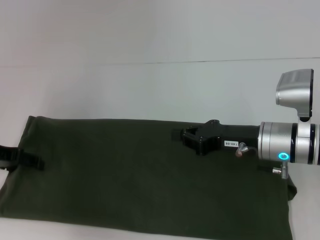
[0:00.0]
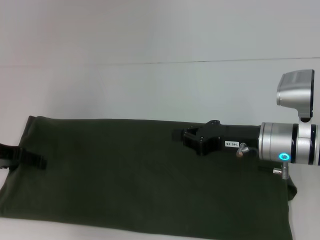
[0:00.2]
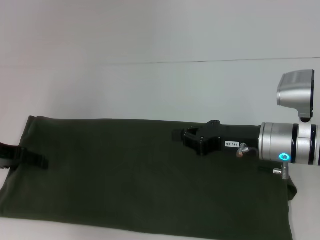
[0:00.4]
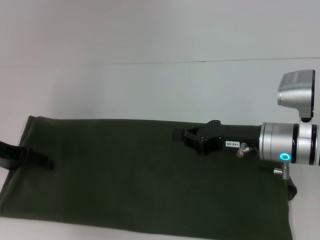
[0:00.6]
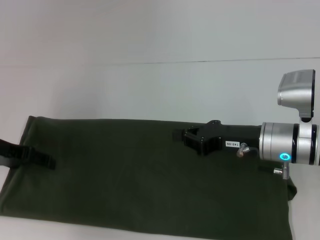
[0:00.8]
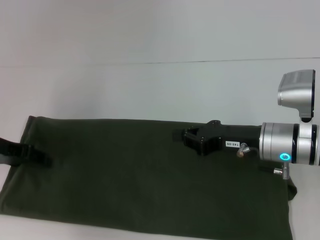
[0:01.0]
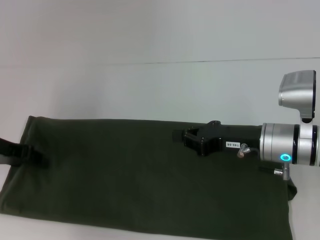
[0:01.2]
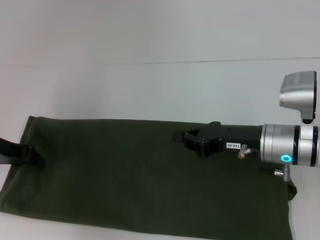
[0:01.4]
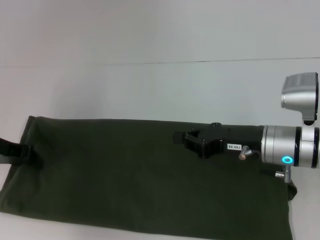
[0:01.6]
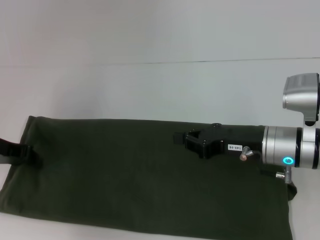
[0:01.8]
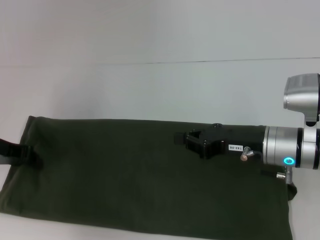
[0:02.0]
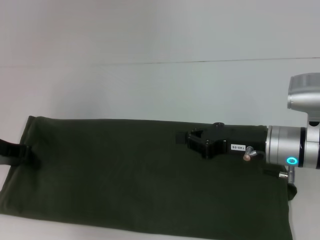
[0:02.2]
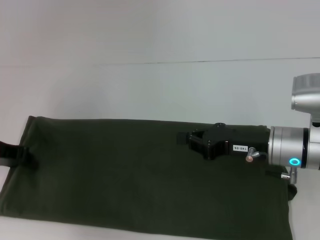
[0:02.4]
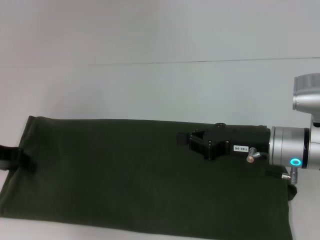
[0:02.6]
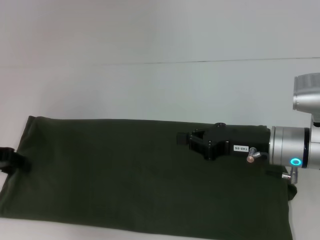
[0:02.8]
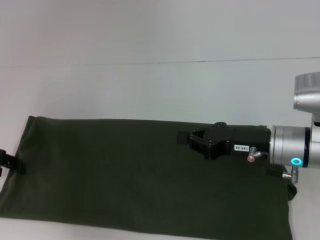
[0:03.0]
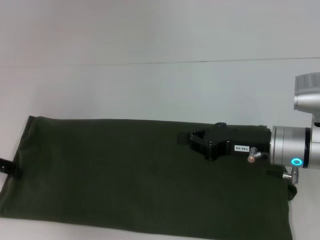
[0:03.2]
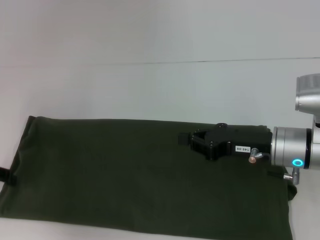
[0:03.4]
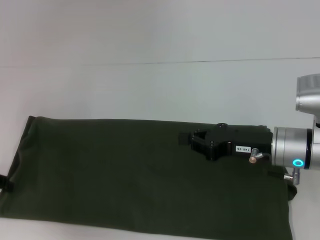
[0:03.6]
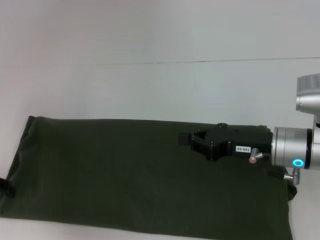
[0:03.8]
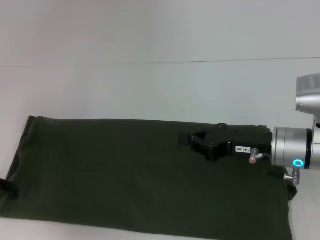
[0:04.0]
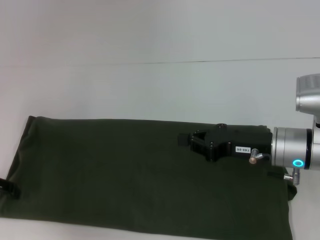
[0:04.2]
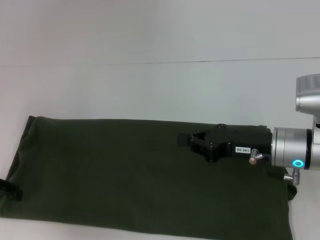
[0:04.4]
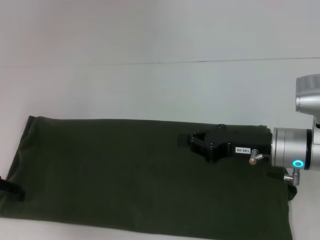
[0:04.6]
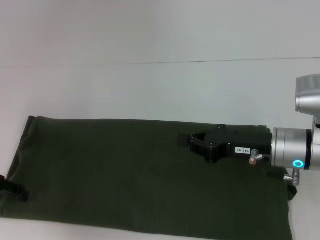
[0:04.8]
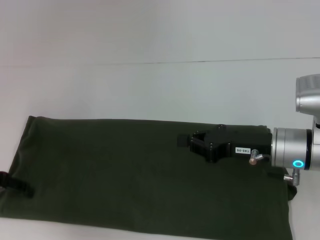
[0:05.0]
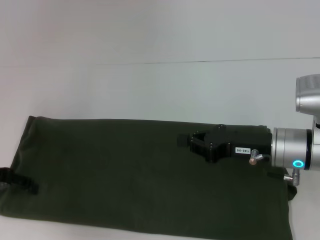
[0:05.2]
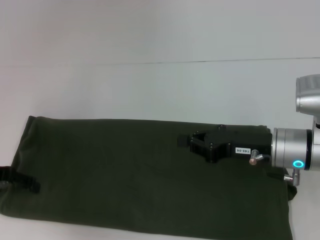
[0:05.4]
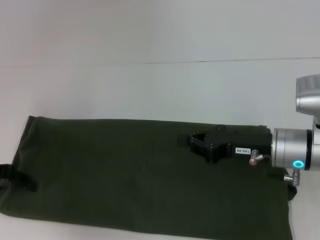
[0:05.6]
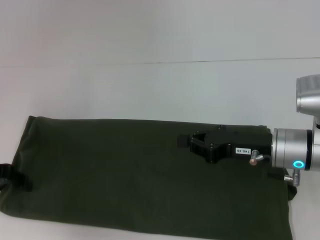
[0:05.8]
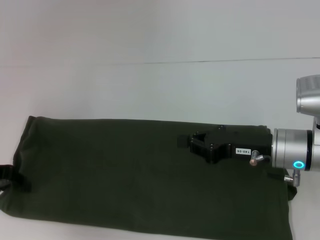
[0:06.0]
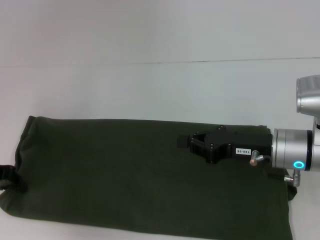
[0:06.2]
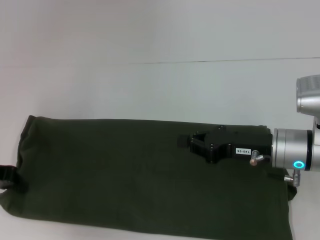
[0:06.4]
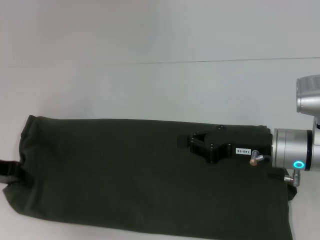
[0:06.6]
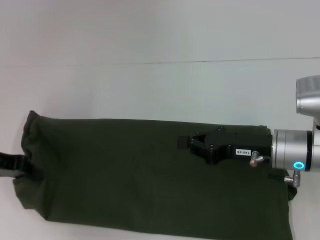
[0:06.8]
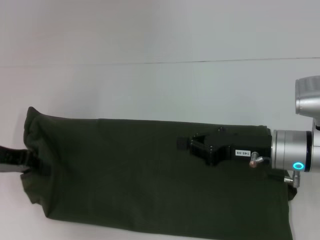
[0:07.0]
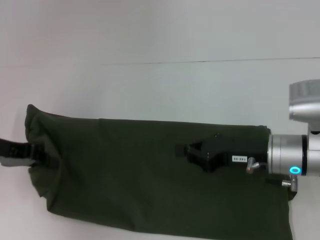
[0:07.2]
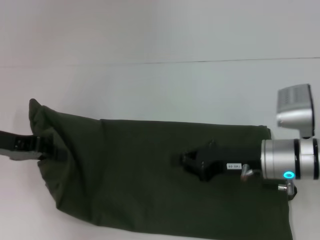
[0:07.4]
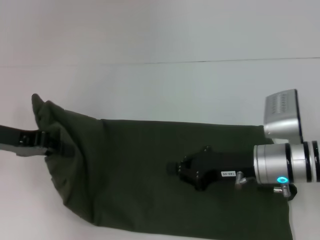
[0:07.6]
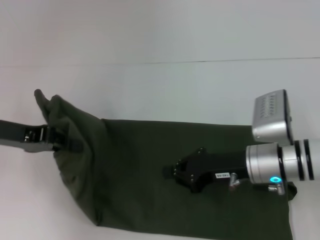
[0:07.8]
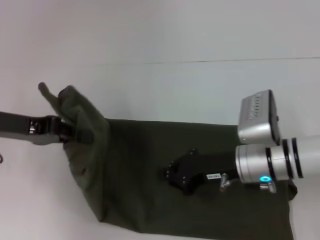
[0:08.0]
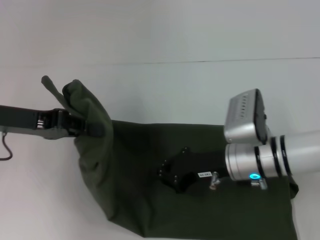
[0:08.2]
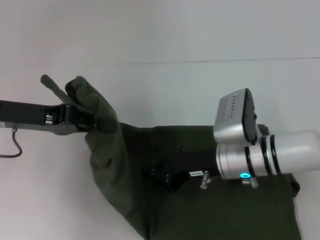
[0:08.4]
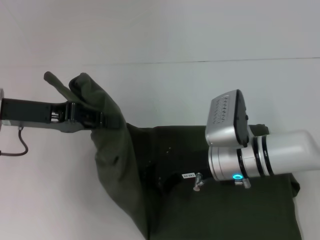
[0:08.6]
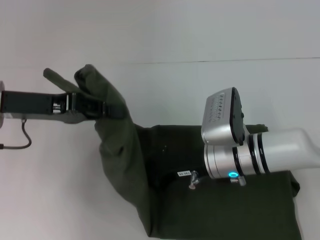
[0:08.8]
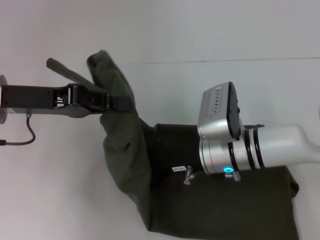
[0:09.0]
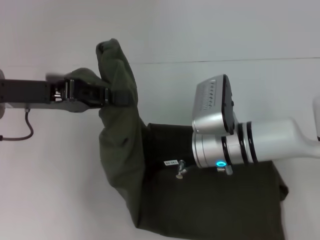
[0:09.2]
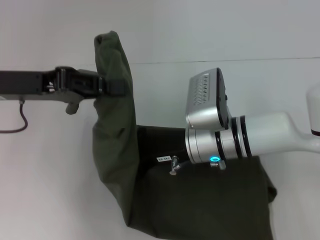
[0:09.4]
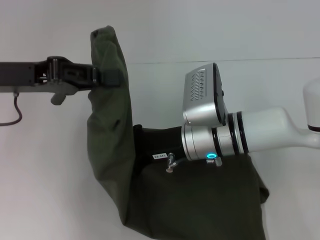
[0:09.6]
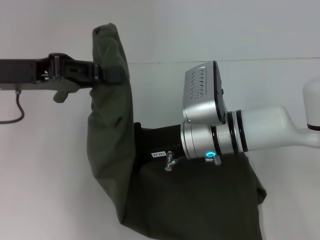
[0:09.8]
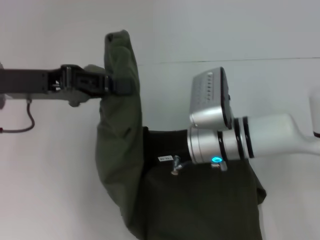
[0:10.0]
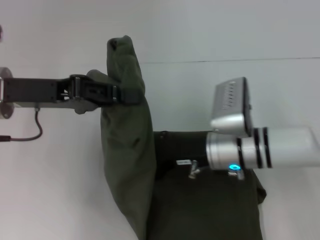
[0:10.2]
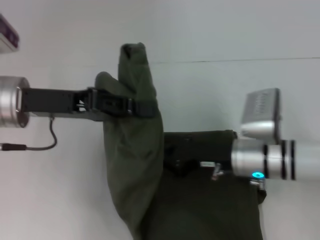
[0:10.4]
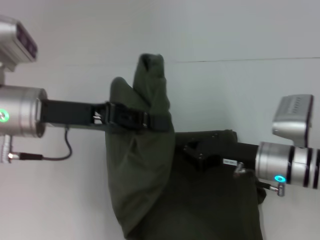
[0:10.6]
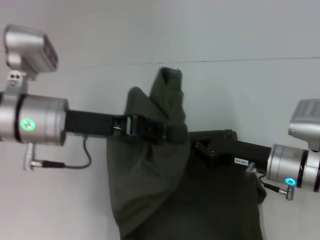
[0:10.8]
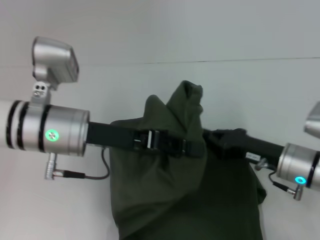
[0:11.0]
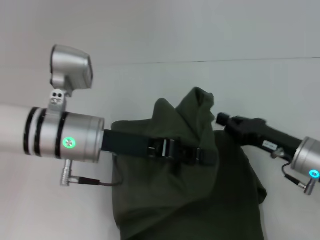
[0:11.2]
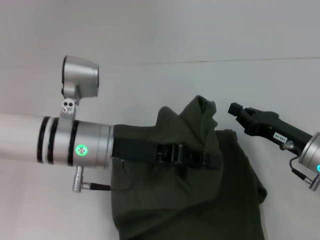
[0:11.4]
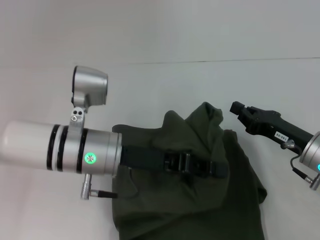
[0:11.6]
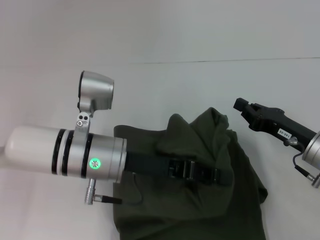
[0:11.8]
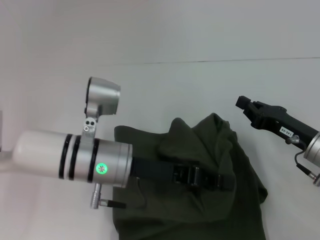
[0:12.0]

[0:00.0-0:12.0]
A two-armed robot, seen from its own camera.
0:00.0 to 0:01.6: The left gripper closes.
0:01.6 to 0:03.0: The grippers make only small movements.
0:03.0 to 0:04.4: The left gripper opens up.
0:04.4 to 0:06.0: The left gripper closes.
0:06.0 to 0:07.6: The left gripper closes its fingers.
0:07.6 to 0:09.0: The left gripper heads to the right, covering approximately 5 cm; the right gripper shifts roughly 10 cm to the left.
0:10.4 to 0:12.0: The right gripper moves to the right, about 10 cm. Meanwhile the left gripper is displaced to the right and downward by approximately 15 cm.

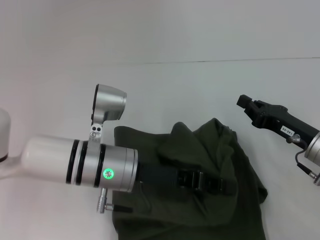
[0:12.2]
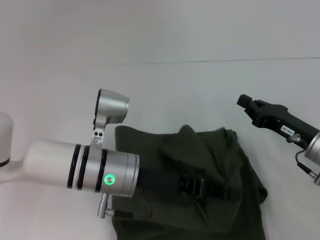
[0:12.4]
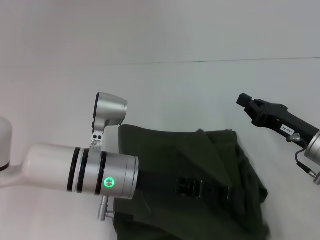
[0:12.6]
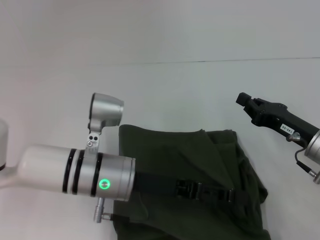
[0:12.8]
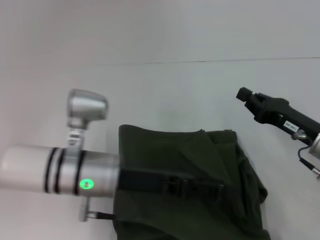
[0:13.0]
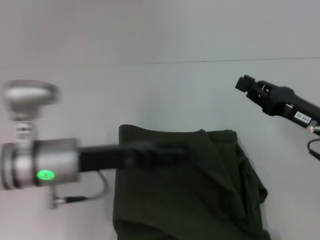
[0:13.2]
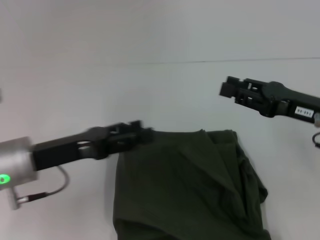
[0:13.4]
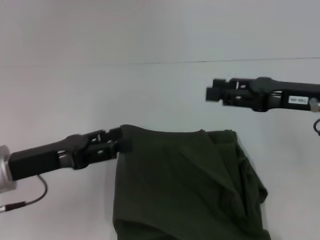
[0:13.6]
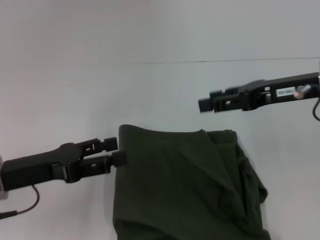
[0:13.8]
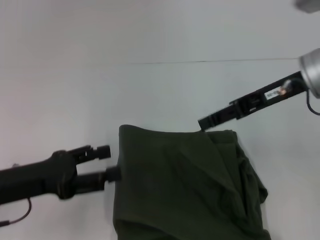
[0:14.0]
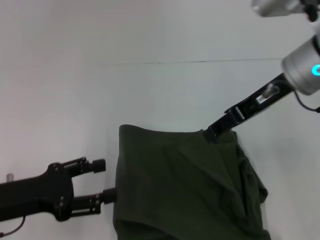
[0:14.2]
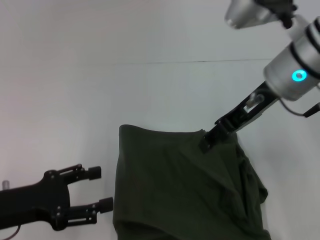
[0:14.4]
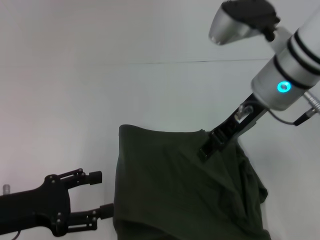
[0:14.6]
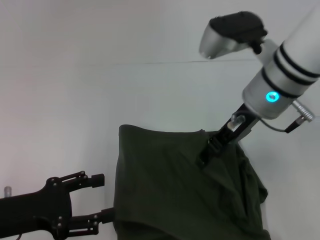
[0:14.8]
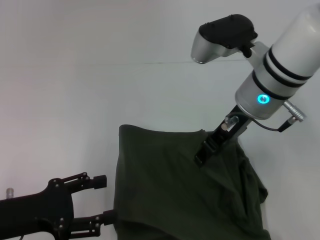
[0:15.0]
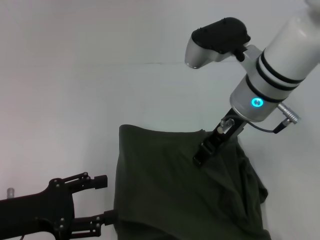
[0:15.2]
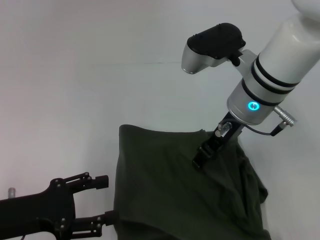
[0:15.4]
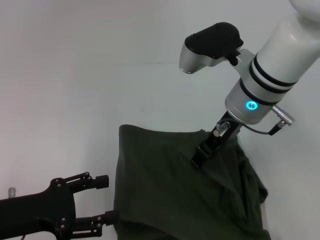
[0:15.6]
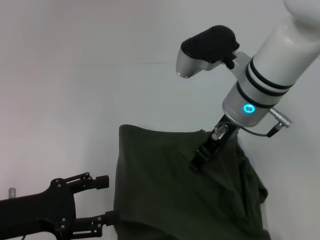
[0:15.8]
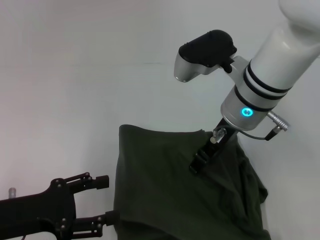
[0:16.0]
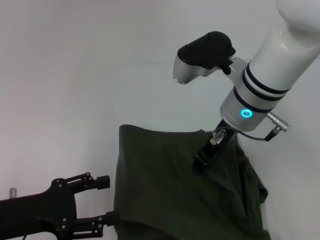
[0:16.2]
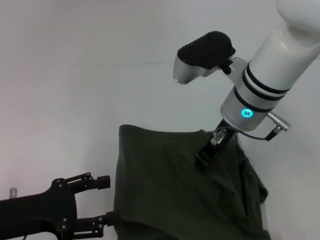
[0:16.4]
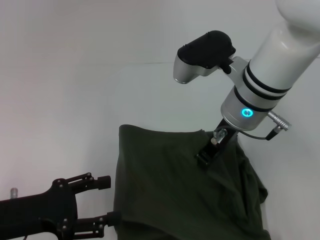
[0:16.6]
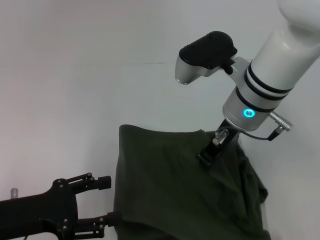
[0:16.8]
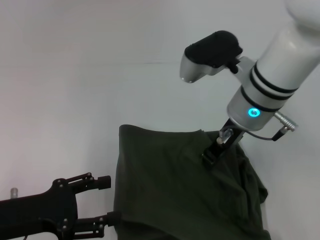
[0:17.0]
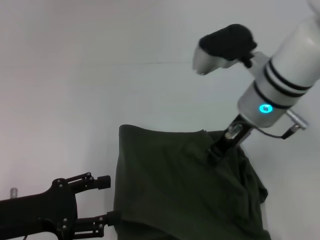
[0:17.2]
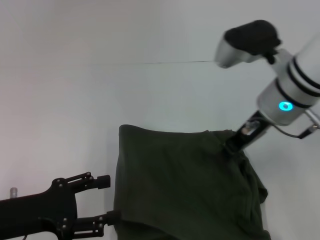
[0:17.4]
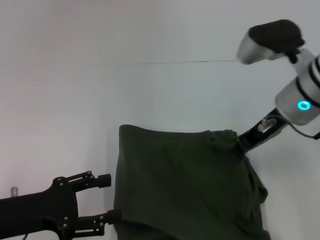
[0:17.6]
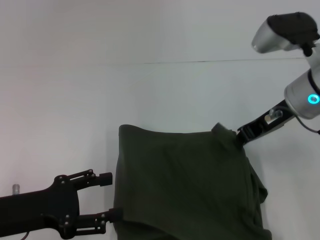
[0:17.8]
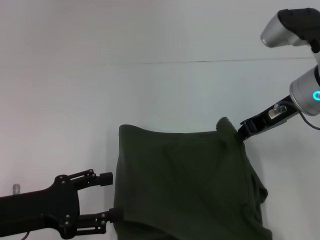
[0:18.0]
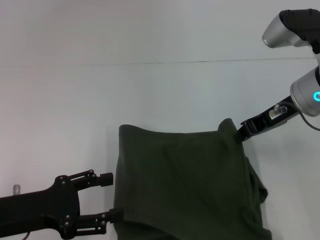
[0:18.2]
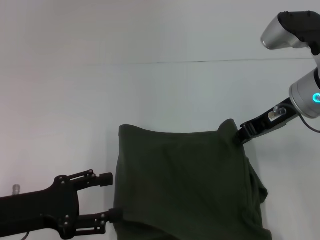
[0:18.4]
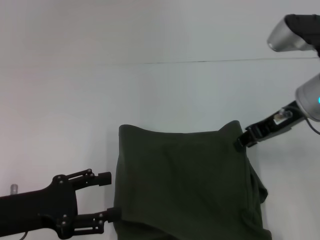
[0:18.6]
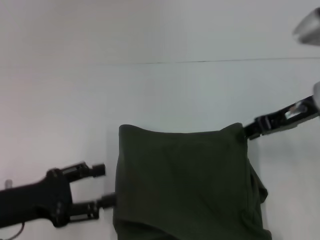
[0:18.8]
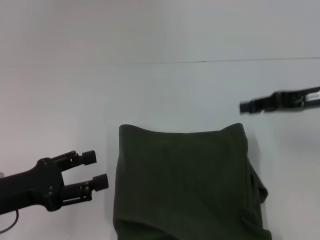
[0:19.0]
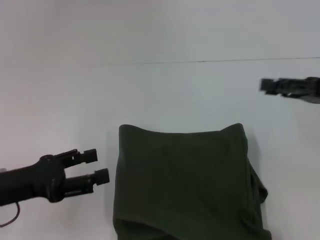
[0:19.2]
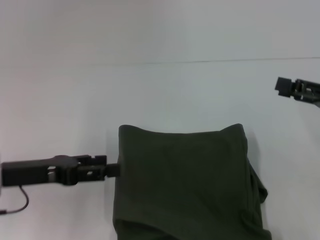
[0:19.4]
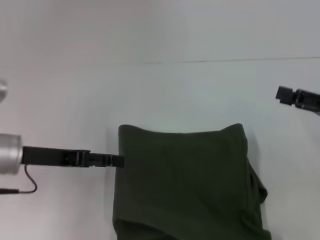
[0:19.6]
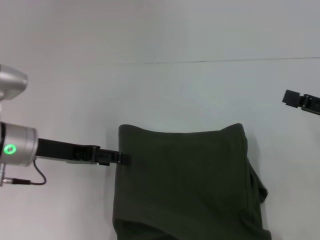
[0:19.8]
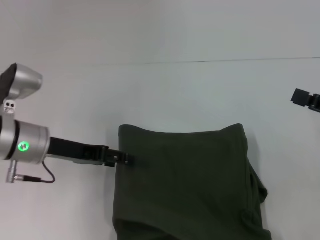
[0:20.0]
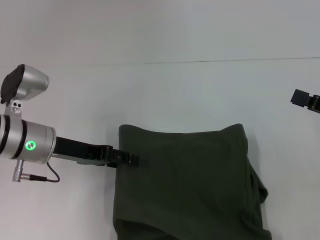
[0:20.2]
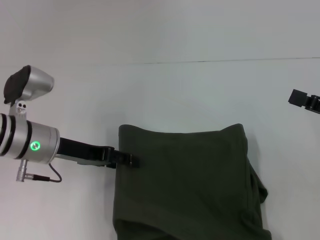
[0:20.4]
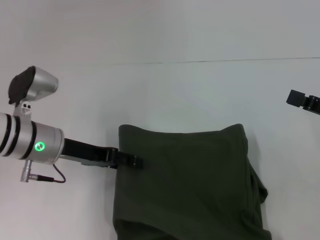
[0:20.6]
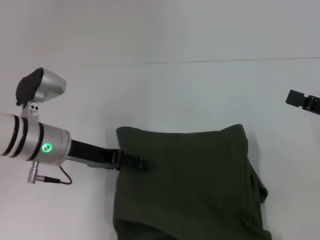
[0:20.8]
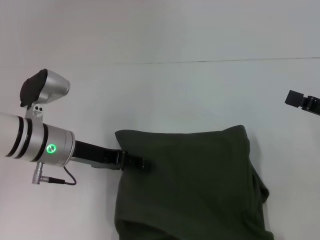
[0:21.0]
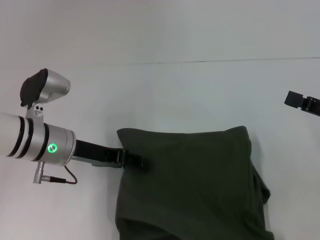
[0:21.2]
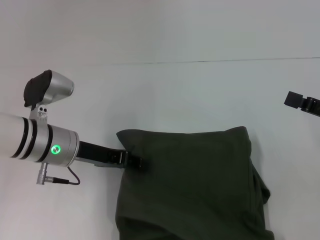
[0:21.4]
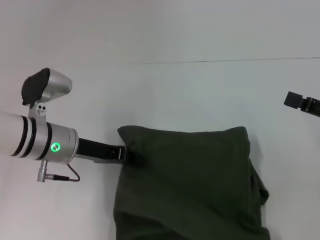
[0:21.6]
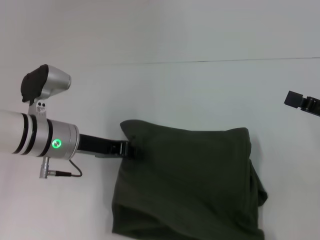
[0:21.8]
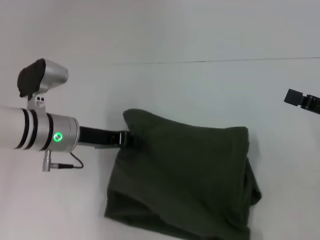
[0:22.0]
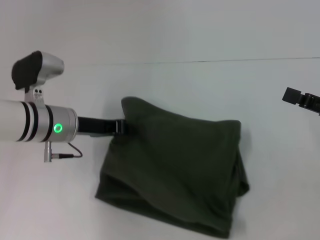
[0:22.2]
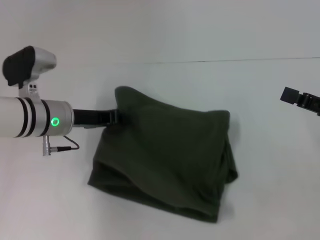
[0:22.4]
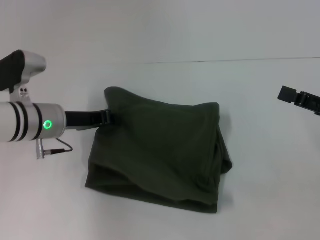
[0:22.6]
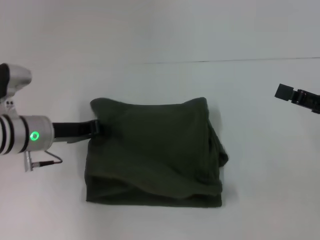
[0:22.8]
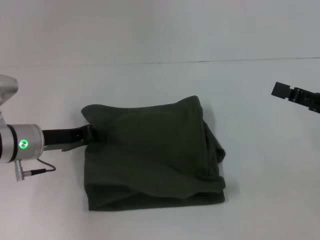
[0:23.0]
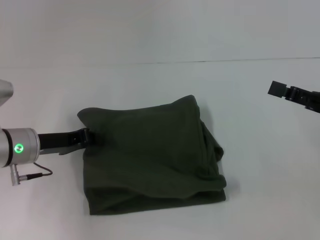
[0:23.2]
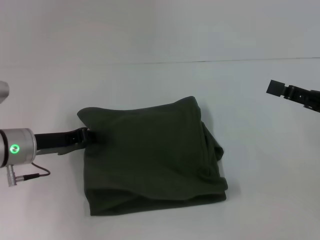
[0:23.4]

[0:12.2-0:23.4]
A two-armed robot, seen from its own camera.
0:12.2 to 0:13.8: The right gripper shifts about 15 cm upward, and opens up. The left gripper shifts approximately 15 cm to the left, and opens up.
0:13.8 to 0:15.4: The right gripper travels to the left by about 10 cm. The left gripper moves about 5 cm.
0:15.4 to 0:17.0: The right gripper closes its fingers.
0:17.0 to 0:18.6: The right gripper travels to the right by about 10 cm.
0:18.6 to 0:20.2: The right gripper heads to the right and backward, covering roughly 15 cm, and opens up, while the left gripper goes about 15 cm forward and to the right.
0:20.2 to 0:21.8: The left gripper closes its fingers.
0:21.8 to 0:23.4: The left gripper moves to the left, roughly 5 cm.
